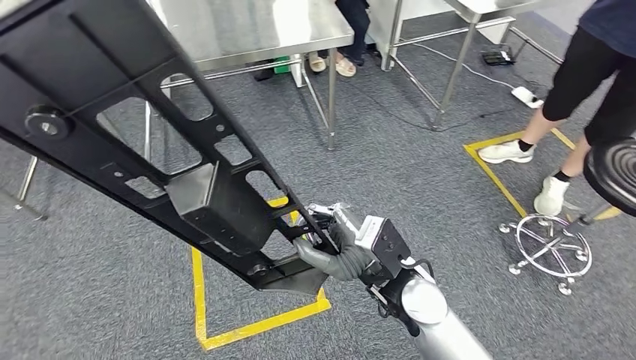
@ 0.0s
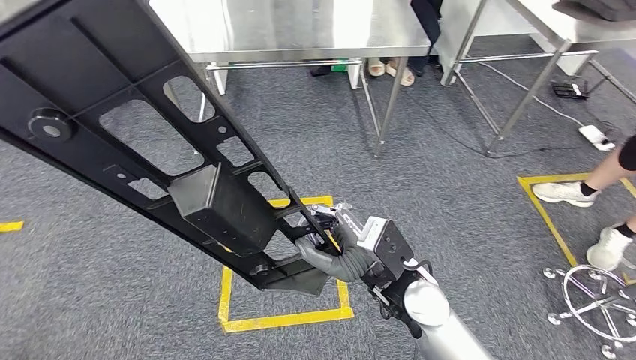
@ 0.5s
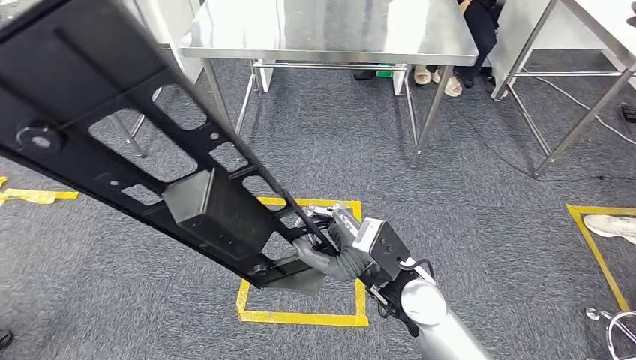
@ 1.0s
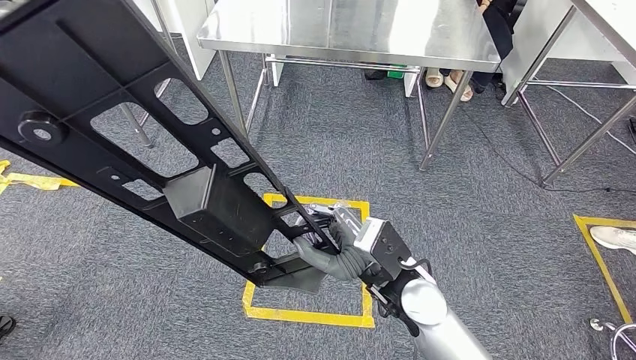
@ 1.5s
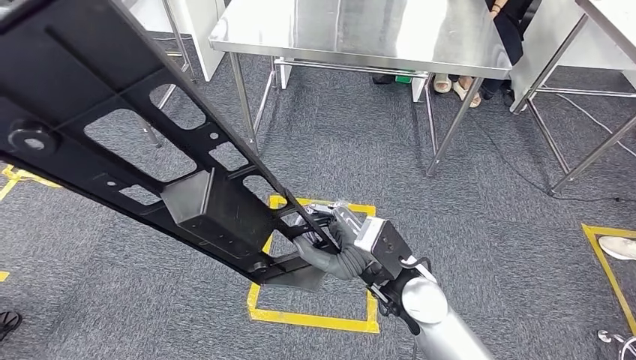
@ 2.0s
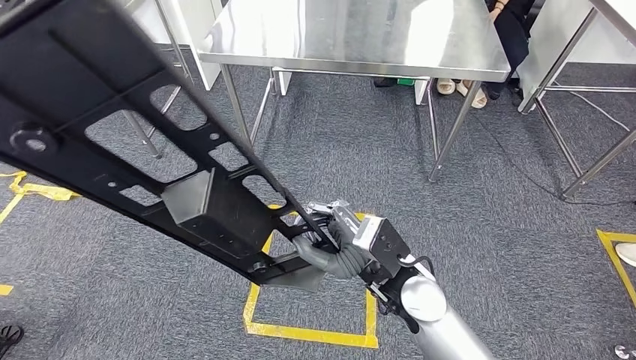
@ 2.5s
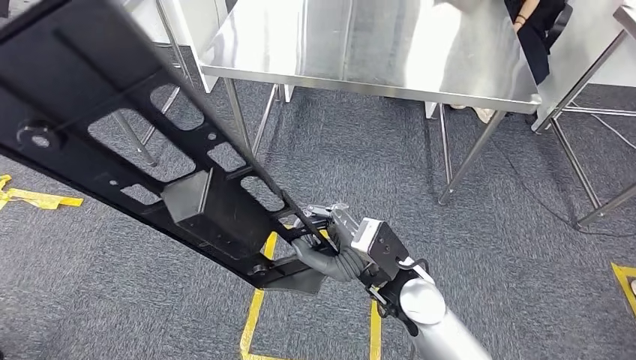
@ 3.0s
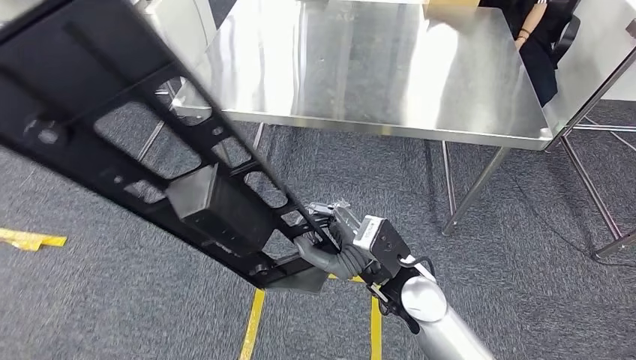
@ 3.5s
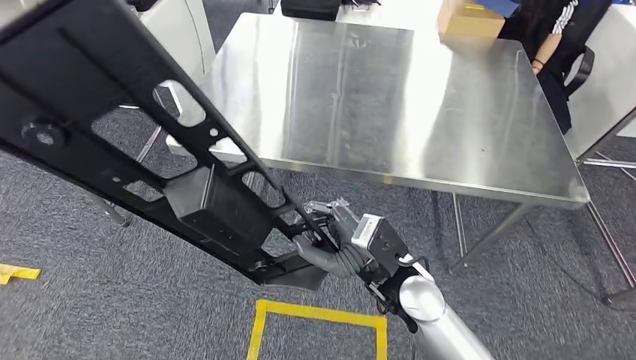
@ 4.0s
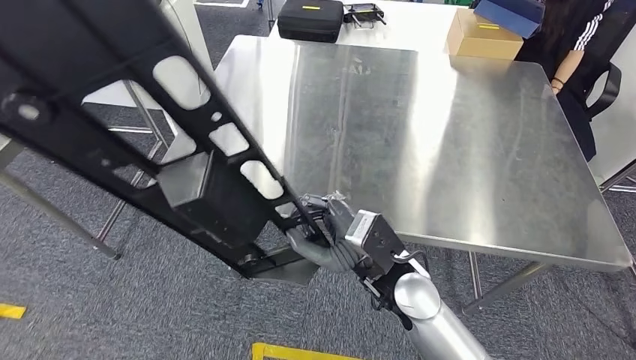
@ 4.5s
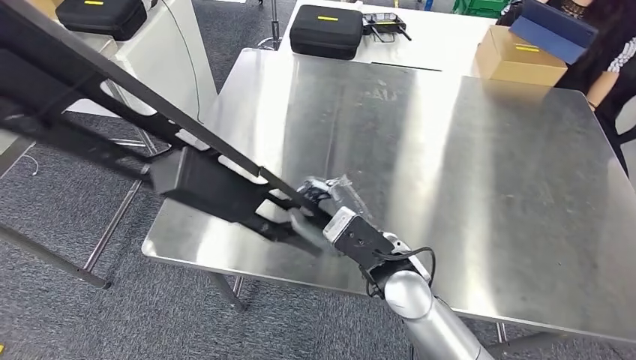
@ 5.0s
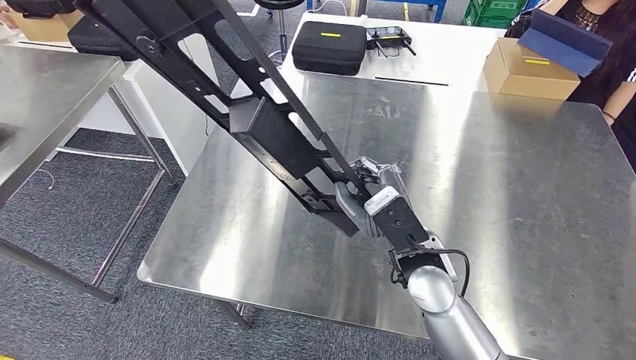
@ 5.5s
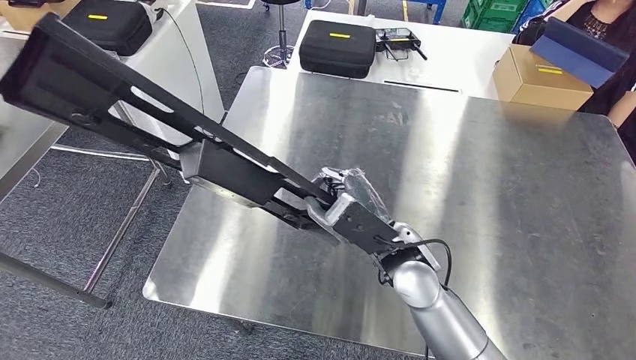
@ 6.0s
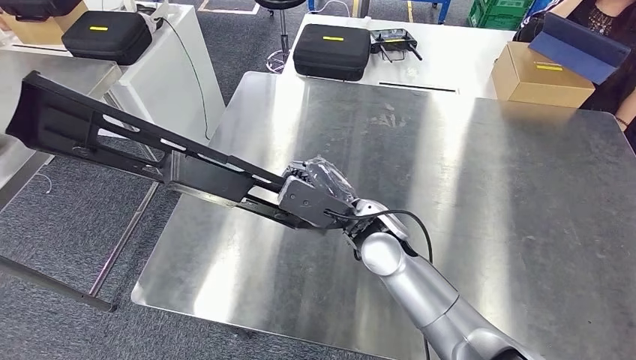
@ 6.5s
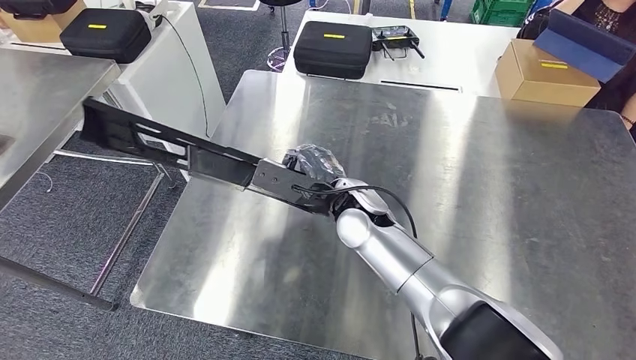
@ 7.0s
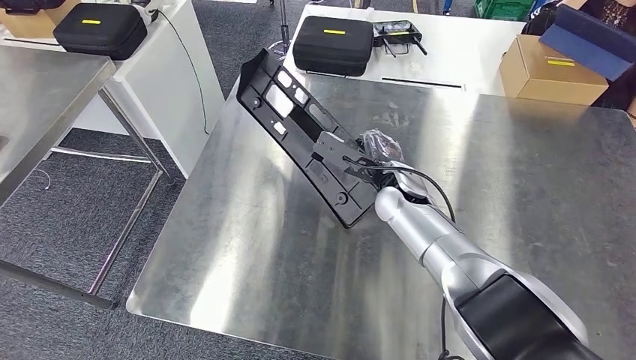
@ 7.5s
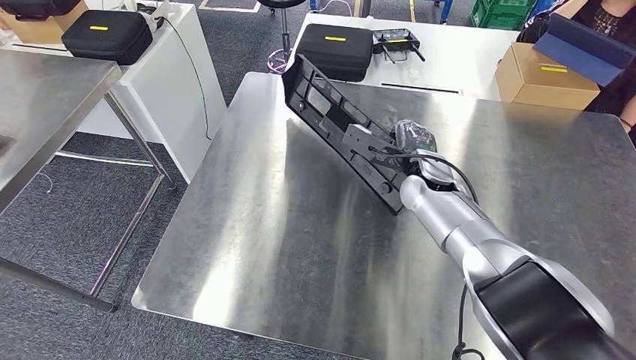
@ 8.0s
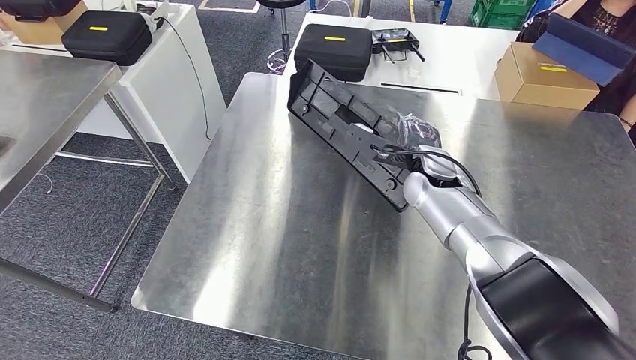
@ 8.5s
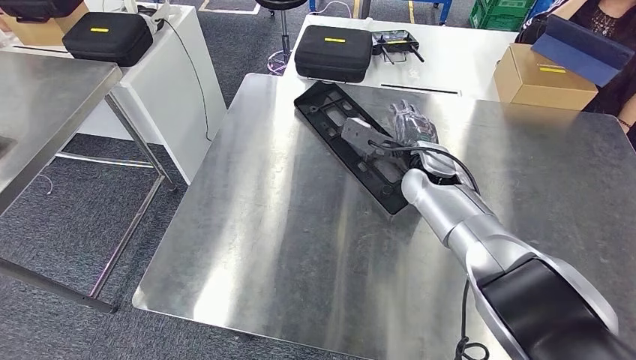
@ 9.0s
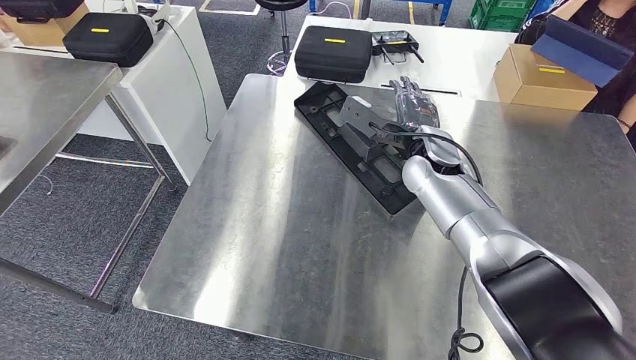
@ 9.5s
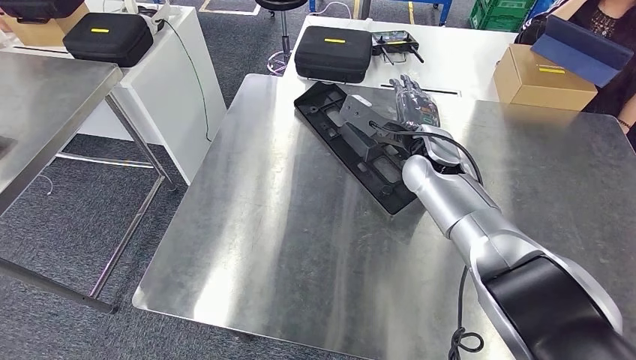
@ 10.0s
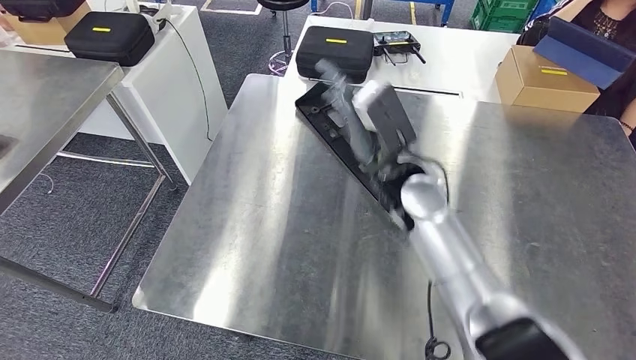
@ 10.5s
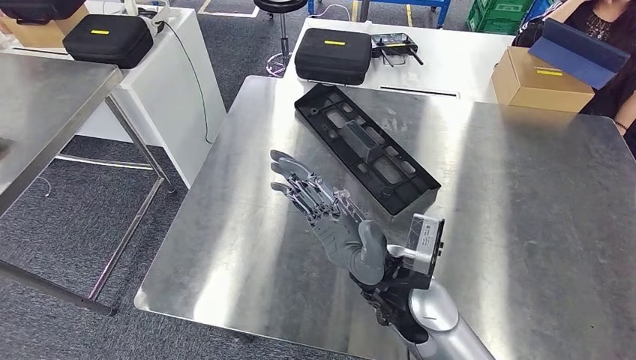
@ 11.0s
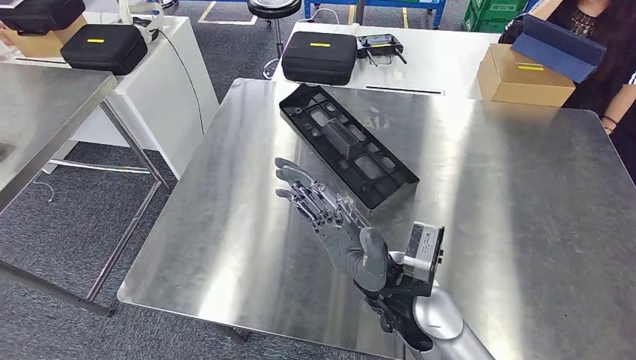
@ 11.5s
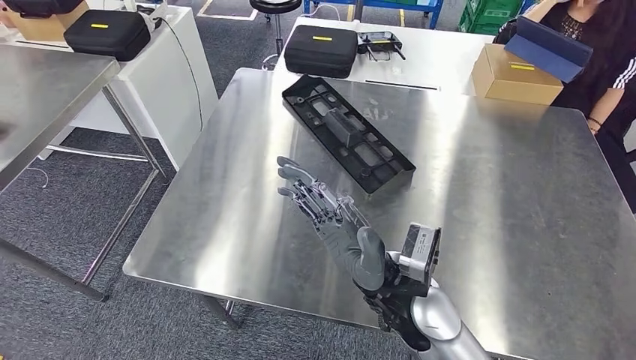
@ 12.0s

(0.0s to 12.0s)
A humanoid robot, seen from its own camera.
Step, 0.0s - 4.0s: Move the large material to the workbench.
8.0s - 10.0s: The hands move only a little.

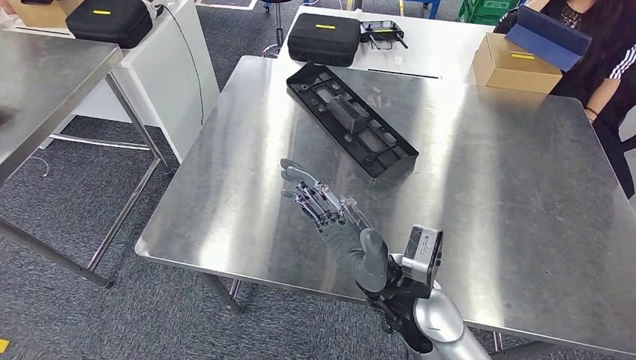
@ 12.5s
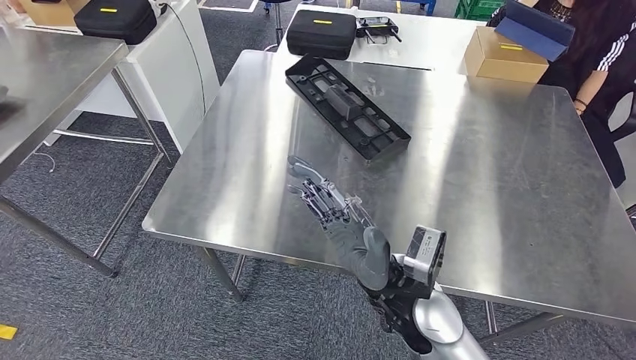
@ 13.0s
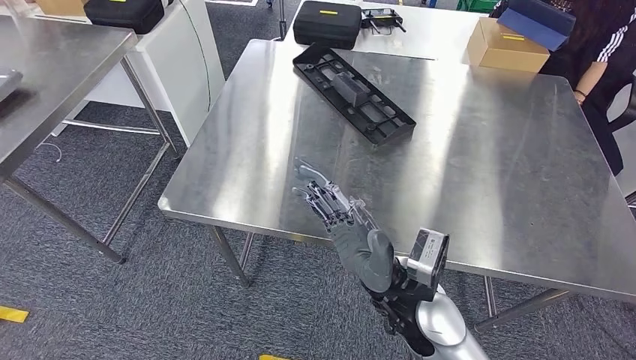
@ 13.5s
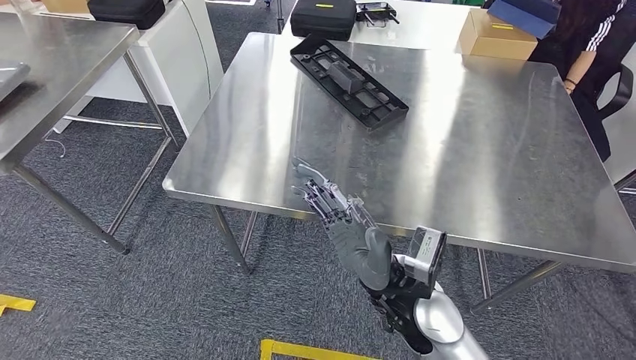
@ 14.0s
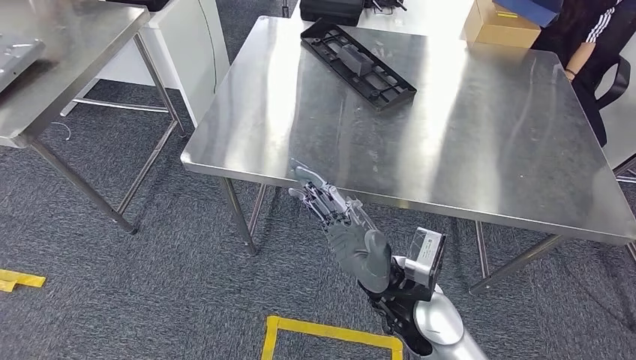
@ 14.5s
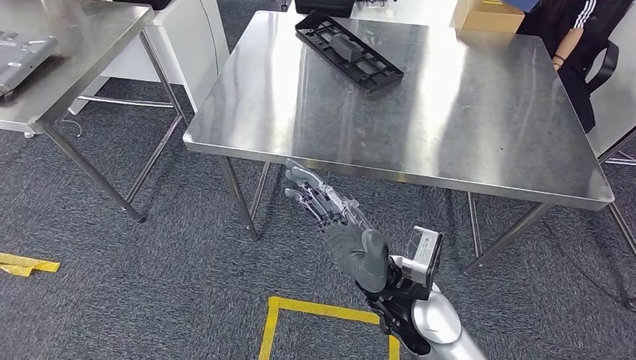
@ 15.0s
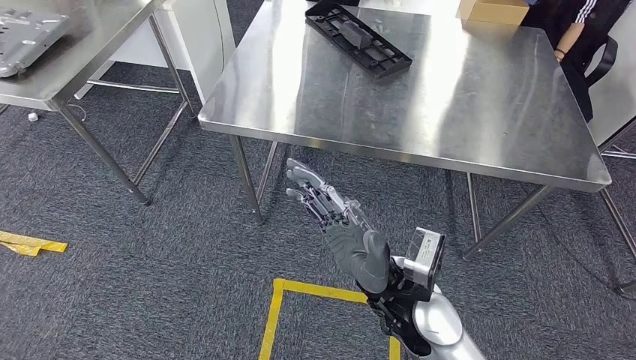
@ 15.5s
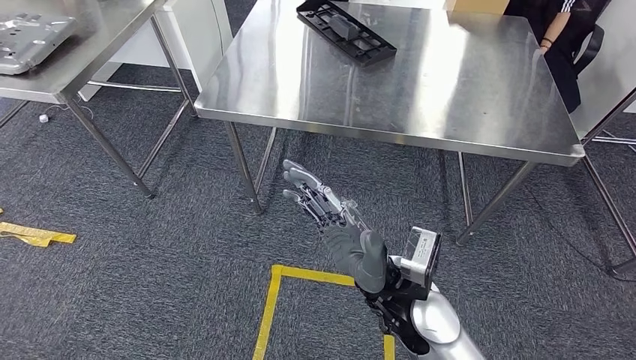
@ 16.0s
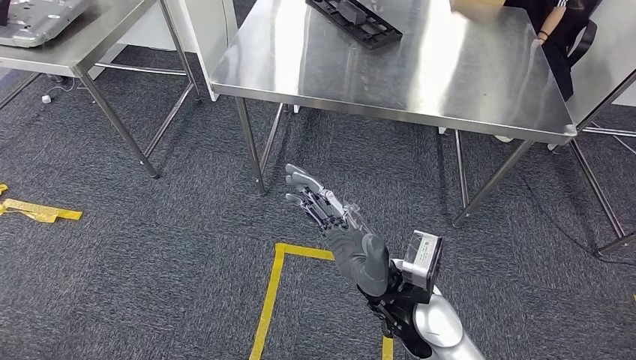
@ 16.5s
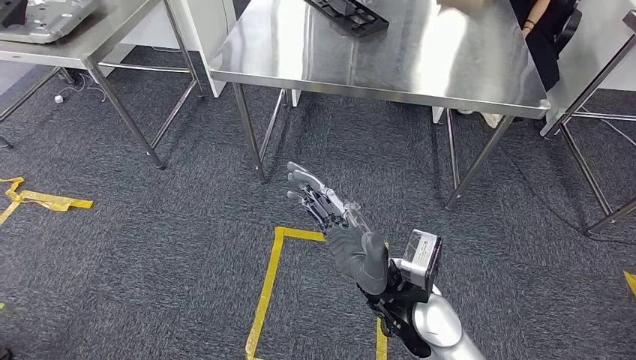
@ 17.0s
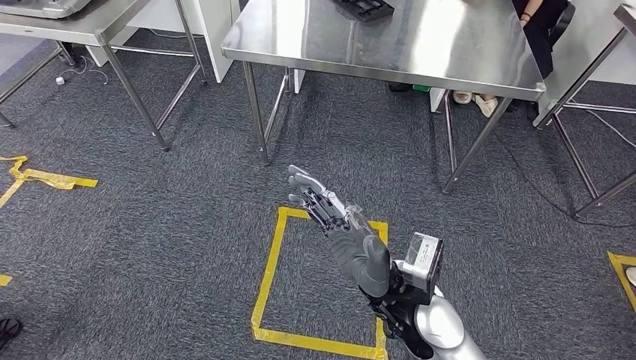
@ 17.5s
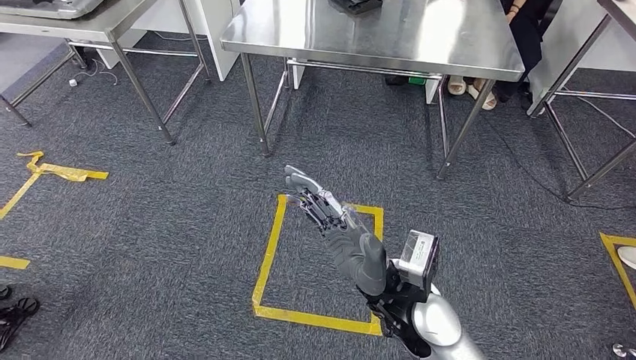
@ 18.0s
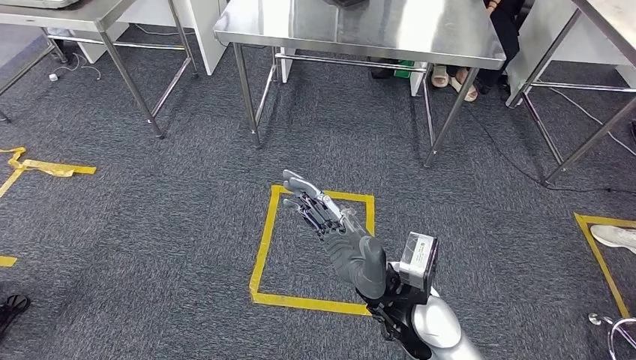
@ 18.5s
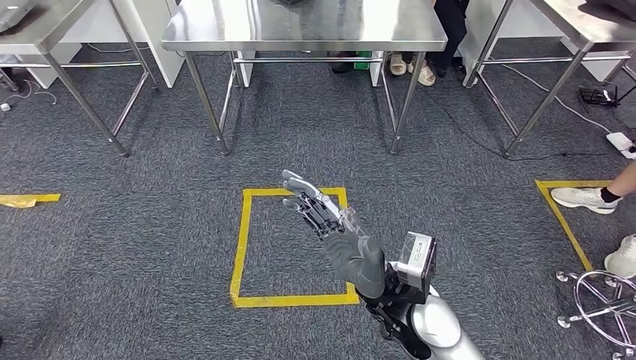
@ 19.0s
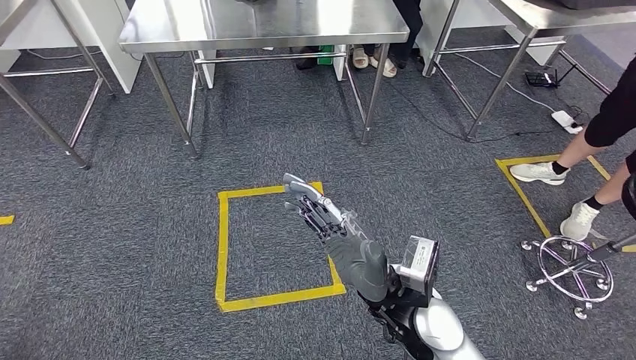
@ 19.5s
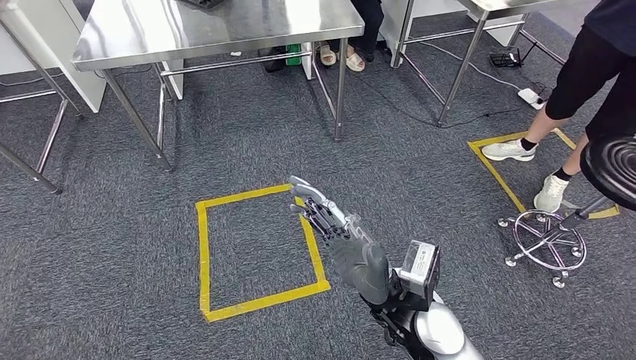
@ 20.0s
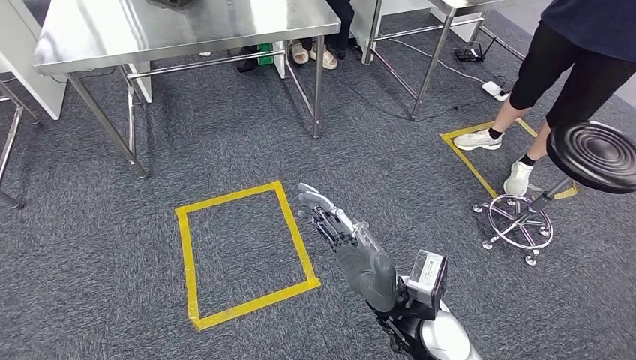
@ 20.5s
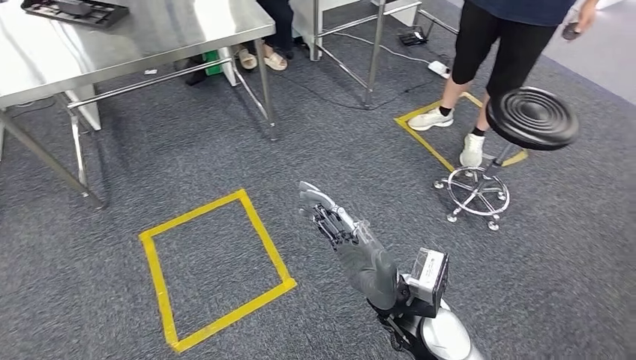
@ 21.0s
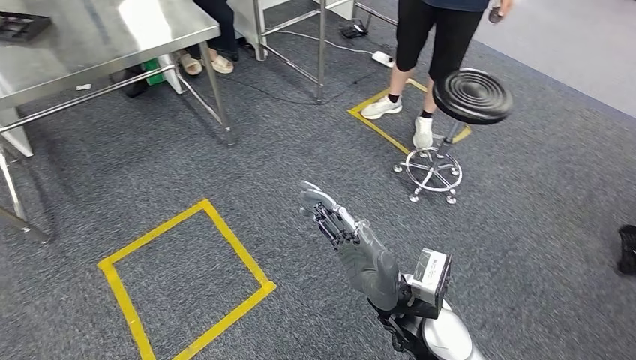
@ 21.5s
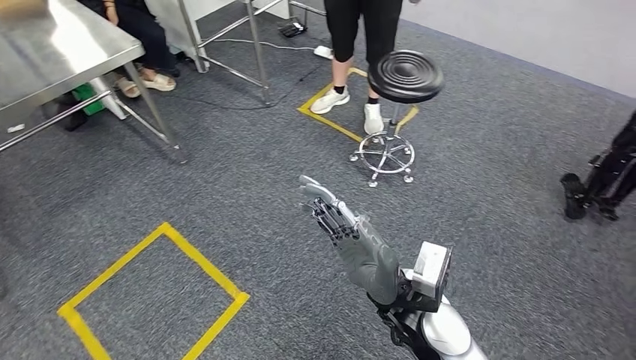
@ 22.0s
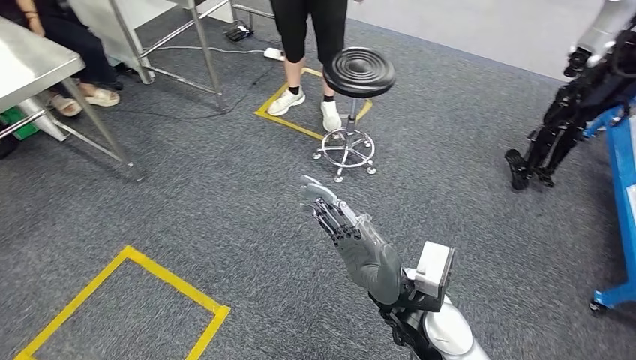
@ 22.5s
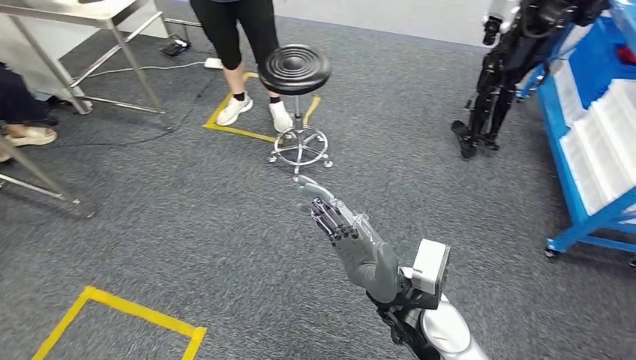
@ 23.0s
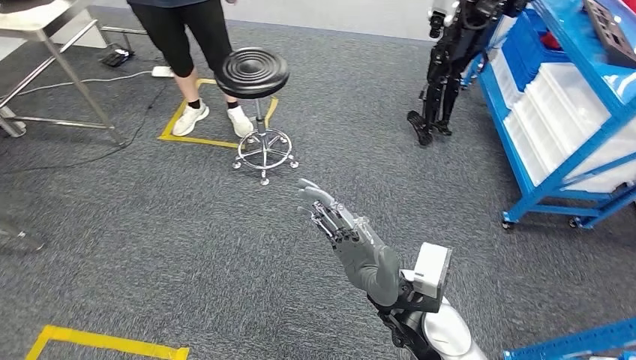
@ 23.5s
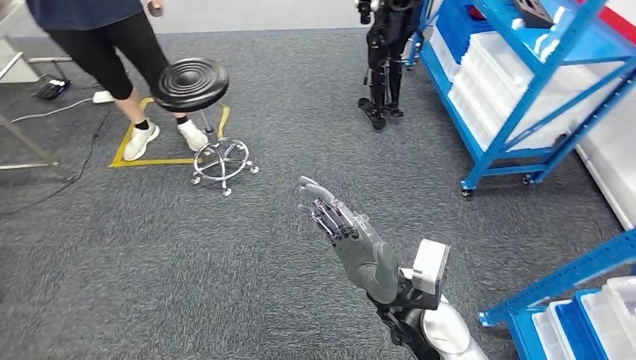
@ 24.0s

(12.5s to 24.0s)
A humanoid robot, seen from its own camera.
Step, 12.5s - 16.0s: Insert the large material into the corresponding slot on the workbench.
